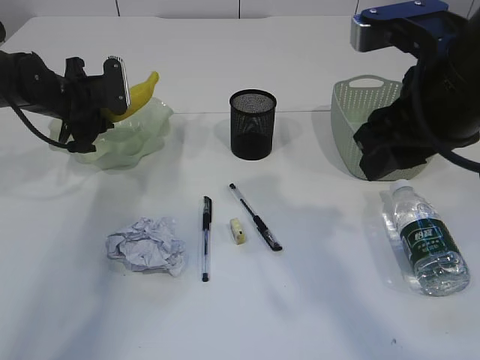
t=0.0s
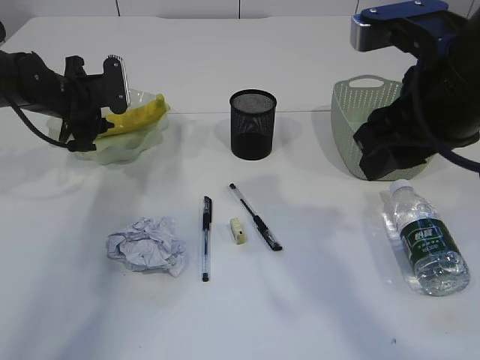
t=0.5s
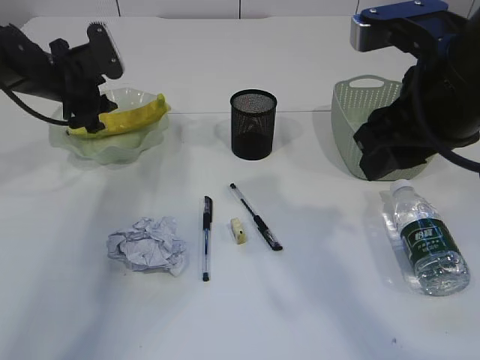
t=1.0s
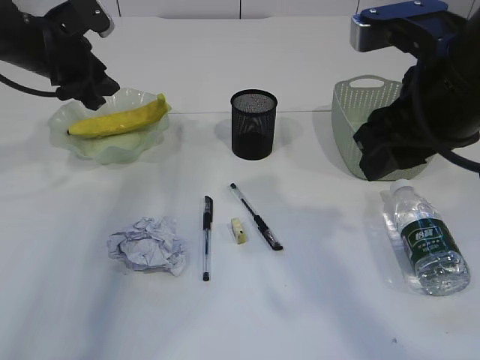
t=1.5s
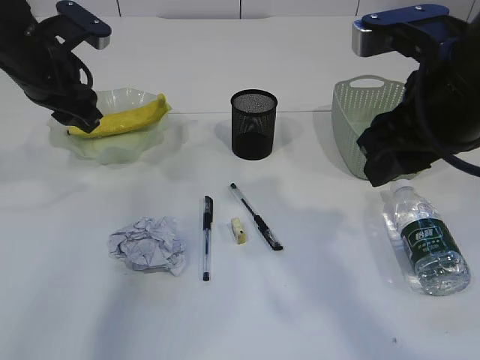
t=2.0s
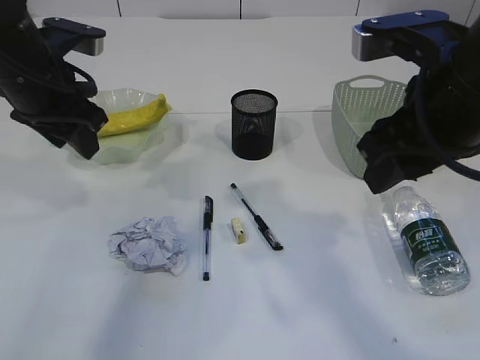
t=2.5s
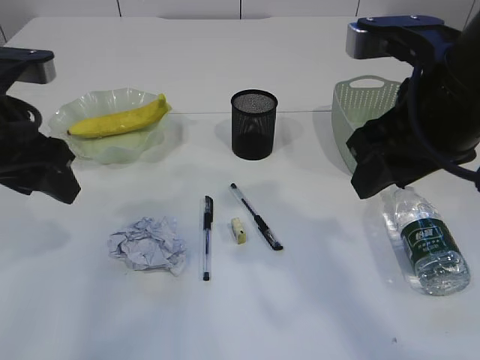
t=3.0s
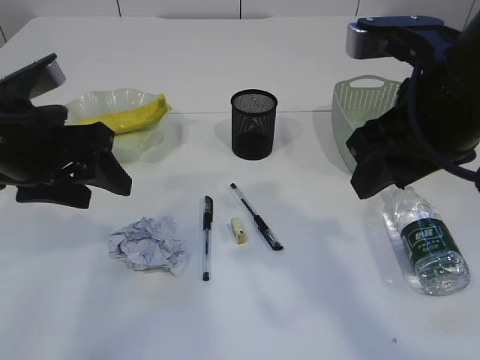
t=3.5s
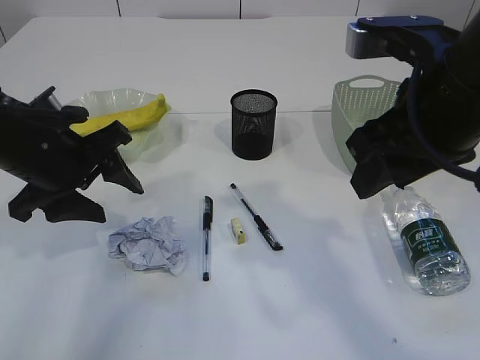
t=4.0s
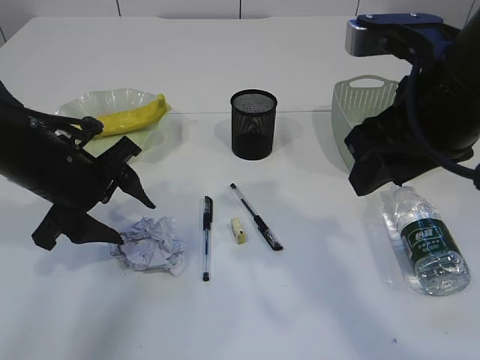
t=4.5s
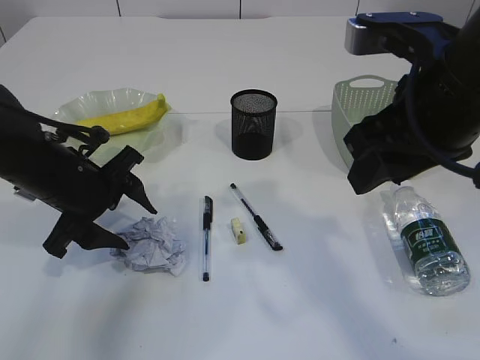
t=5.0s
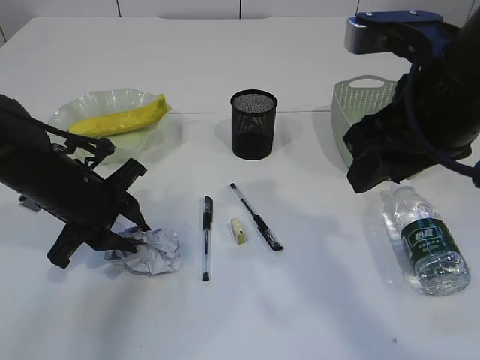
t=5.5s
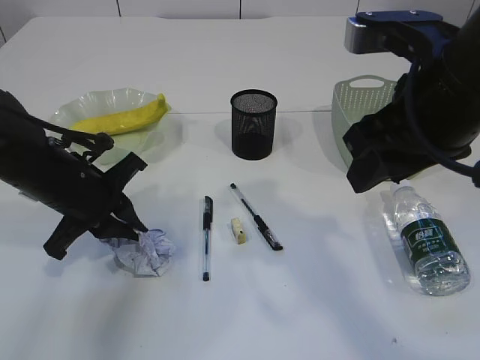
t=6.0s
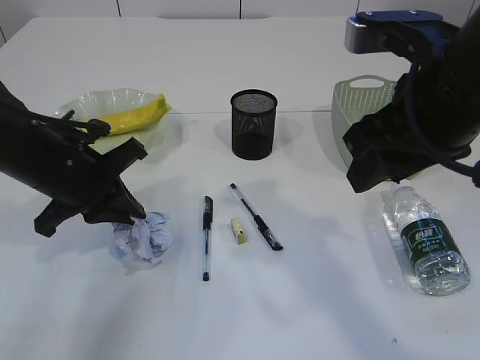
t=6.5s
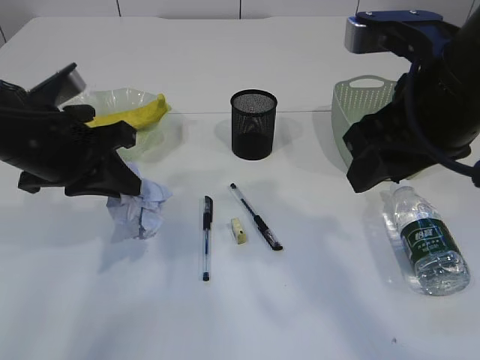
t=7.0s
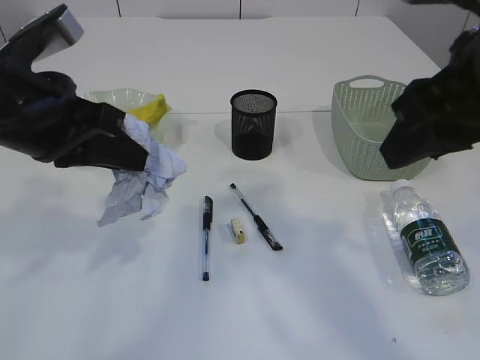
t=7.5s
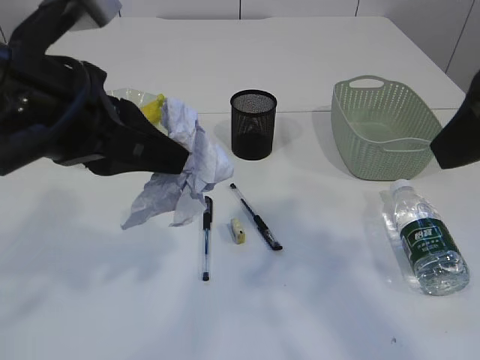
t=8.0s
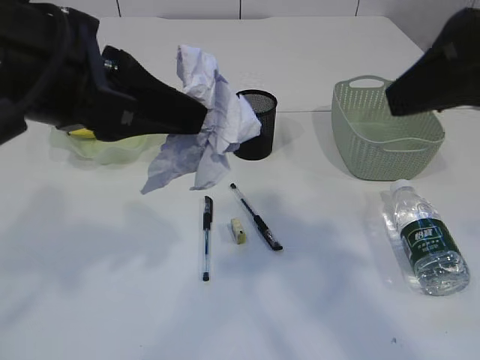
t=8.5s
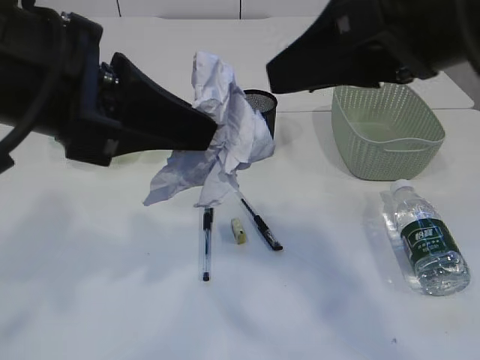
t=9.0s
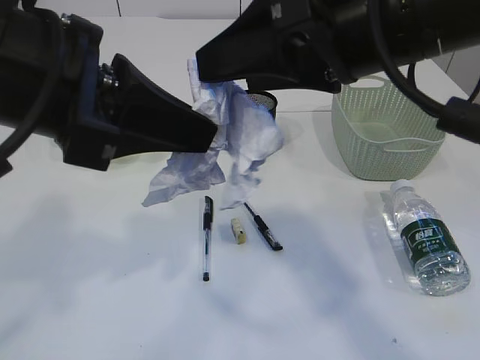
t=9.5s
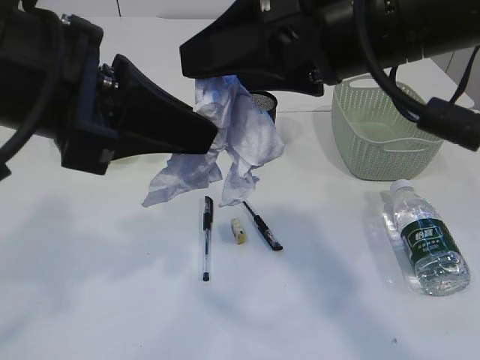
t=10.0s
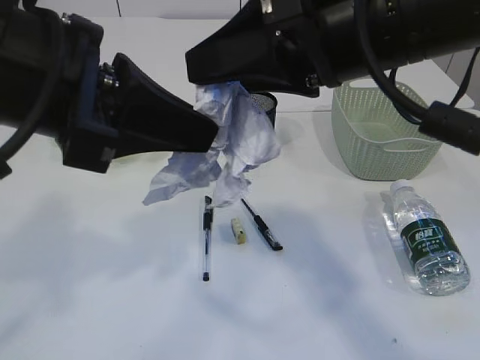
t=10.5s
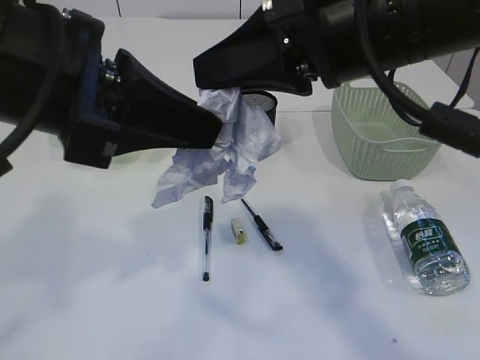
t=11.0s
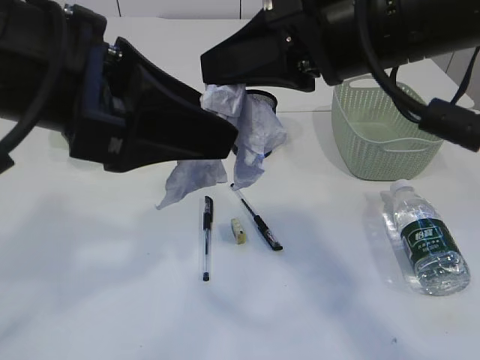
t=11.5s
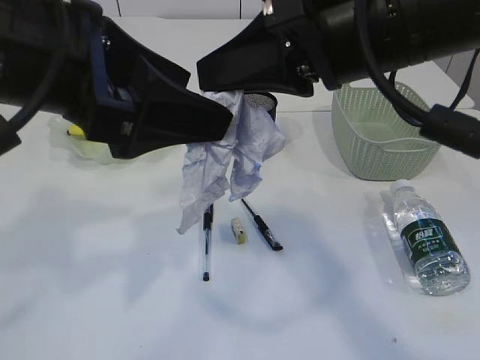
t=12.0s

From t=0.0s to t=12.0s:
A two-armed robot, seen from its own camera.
Step, from t=1.5s to t=6.5s: Pick up the waste paper.
From t=0.0s to t=2.0s: The left gripper moves upward and backward, approximately 10 cm.
From t=2.0s to t=4.0s: The left gripper shifts roughly 10 cm backward.
From t=4.0s to t=6.0s: The left gripper heads downward, covering roughly 5 cm, and closes its fingers.
From t=6.0s to t=8.0s: The left gripper shifts some 20 cm upward and backward, while the right gripper shifts about 10 cm backward and upward.
From t=8.0s to t=10.0s: The right gripper shifts approximately 10 cm to the left and forward, and opens its fingers.
From t=10.0s to t=12.0s: The left gripper opens up. The right gripper closes.

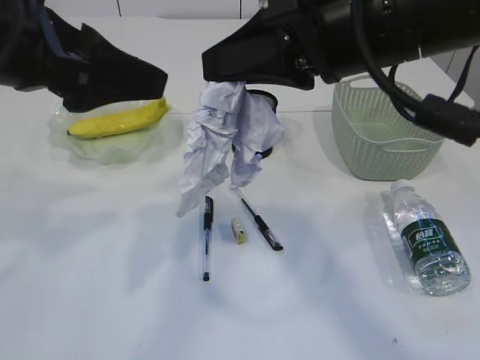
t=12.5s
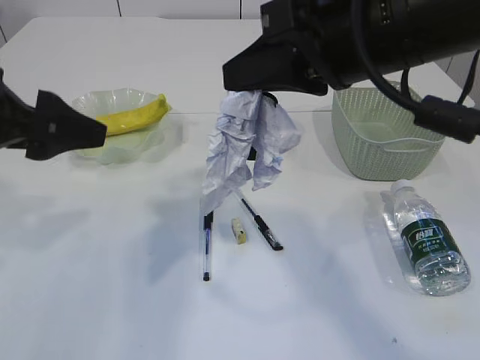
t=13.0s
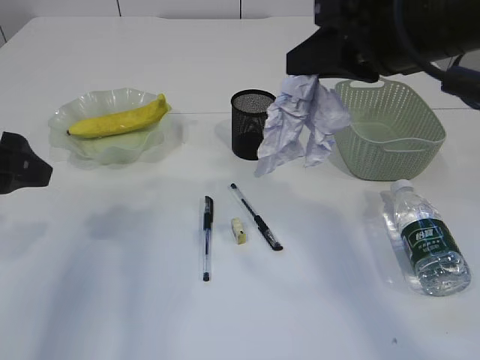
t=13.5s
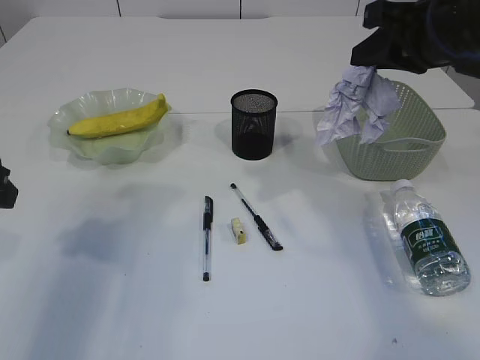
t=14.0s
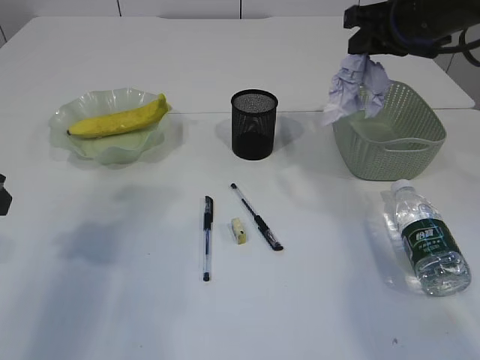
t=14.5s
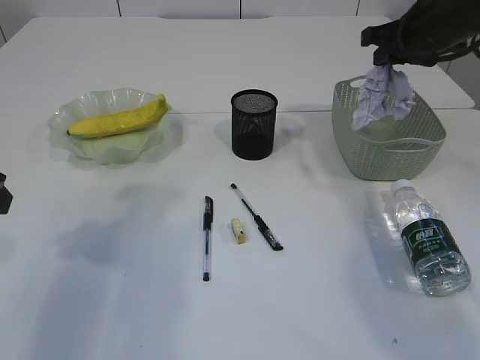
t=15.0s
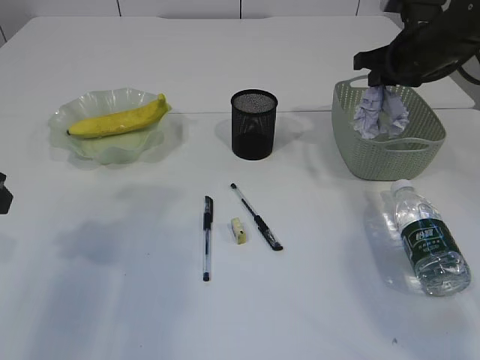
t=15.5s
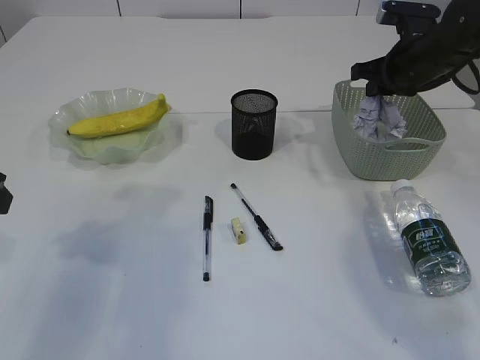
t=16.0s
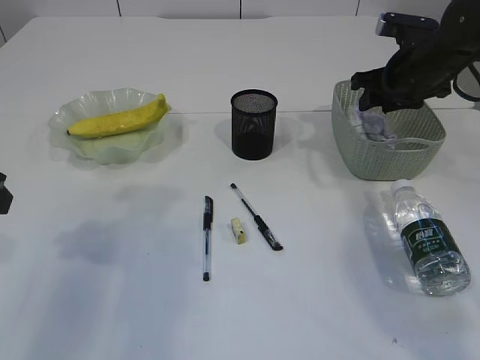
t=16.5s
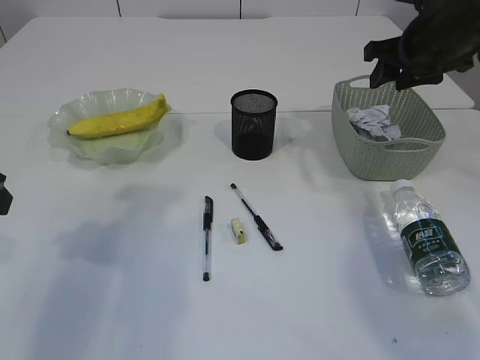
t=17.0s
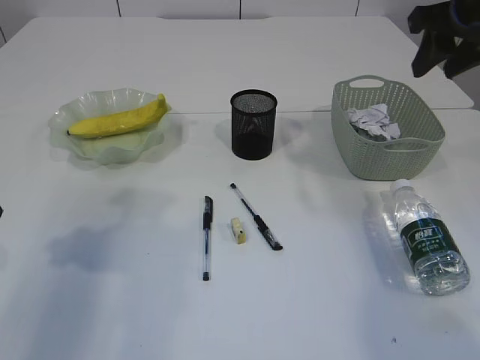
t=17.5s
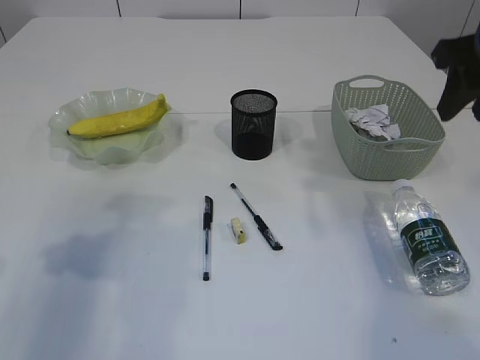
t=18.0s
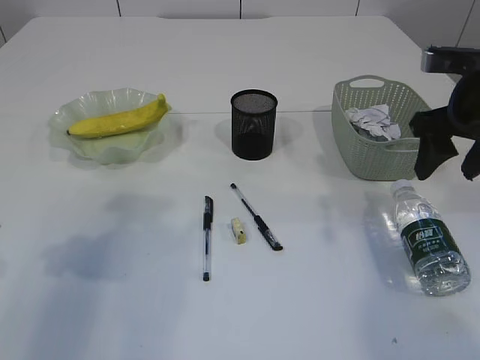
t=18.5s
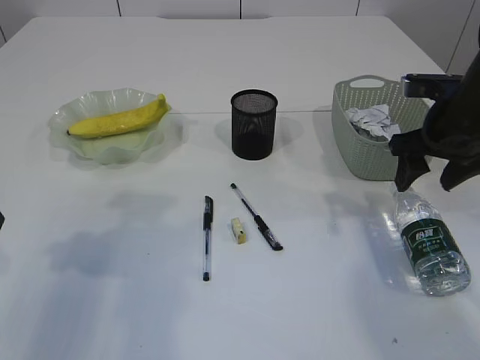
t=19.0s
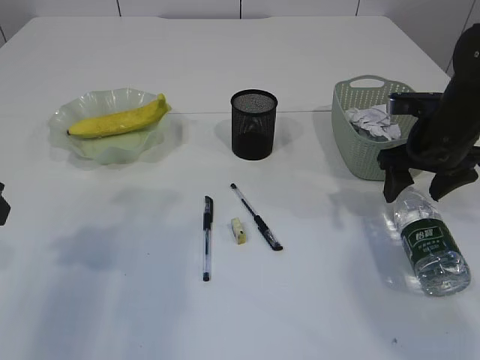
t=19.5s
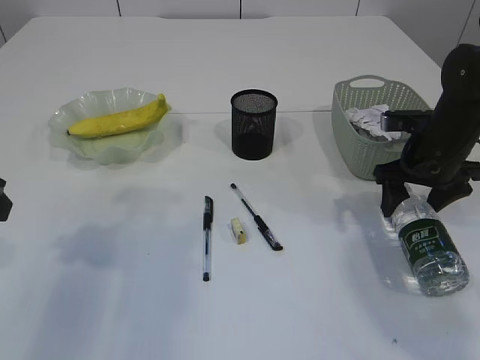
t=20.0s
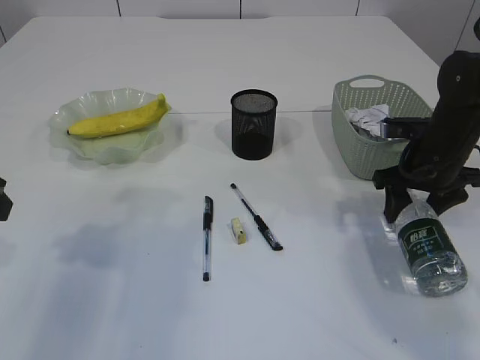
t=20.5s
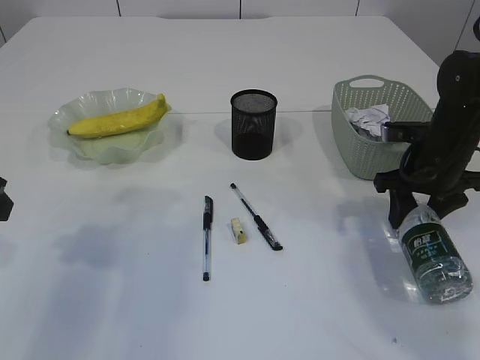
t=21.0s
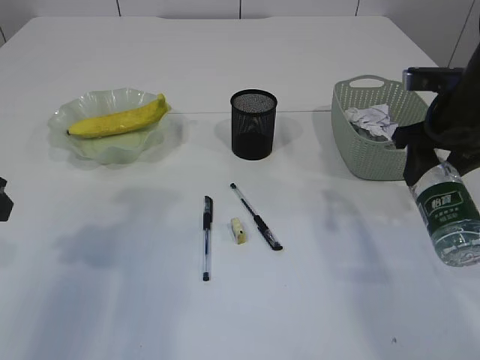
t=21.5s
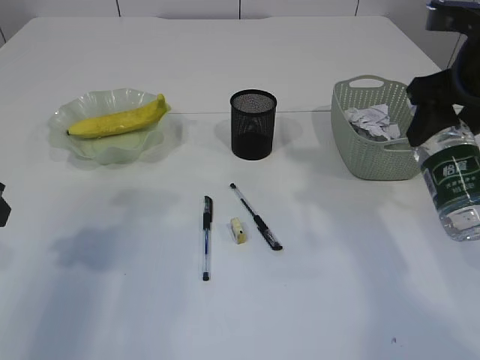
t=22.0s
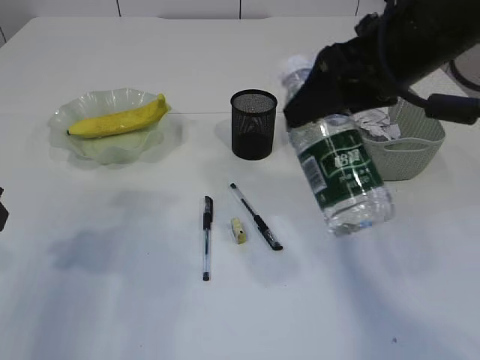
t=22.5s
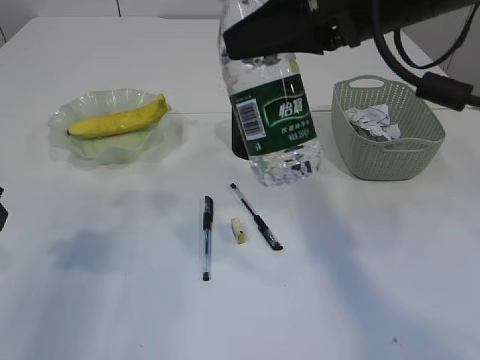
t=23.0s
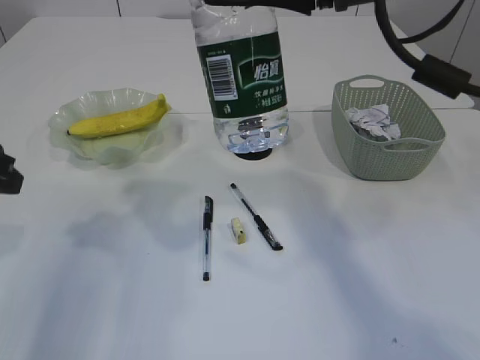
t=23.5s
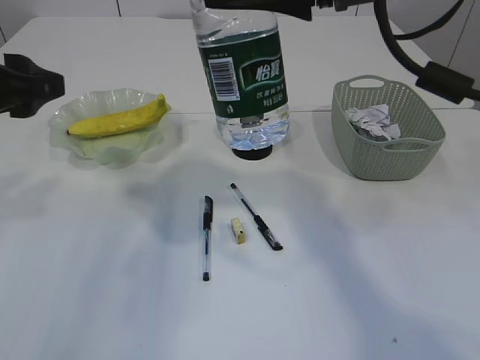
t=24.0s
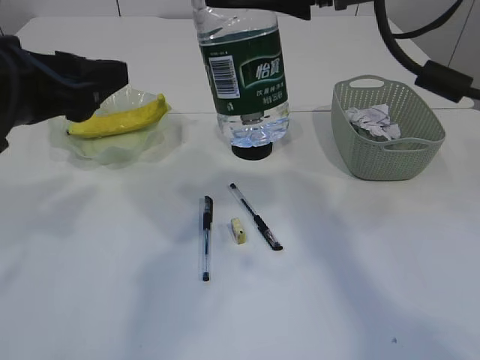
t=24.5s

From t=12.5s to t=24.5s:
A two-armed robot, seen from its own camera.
Step, from t=13.0s to t=17.0s: Place the waste paper in the basket.
Step, from t=17.5s to t=21.0s: Pick up the bottle with the right arm.
From t=12.5s to t=14.5s: The right gripper is displaced forward and to the right by some 20 cm. The left gripper is displaced to the left and downward by about 15 cm.
From t=14.5s to t=16.5s: The right gripper shifts about 10 cm downward and forward, and opens.
From t=16.5s to t=18.5s: The right gripper heads backward, covering some 15 cm.
From t=18.5s to t=20.5s: The right gripper is displaced downward and forward by approximately 15 cm.
From t=20.5s to t=22.5s: The right gripper moves upward, to the left and backward, some 25 cm.
From t=22.5s to t=24.5s: The left gripper is displaced to the right by some 10 cm, while the right gripper travels upward by some 5 cm.

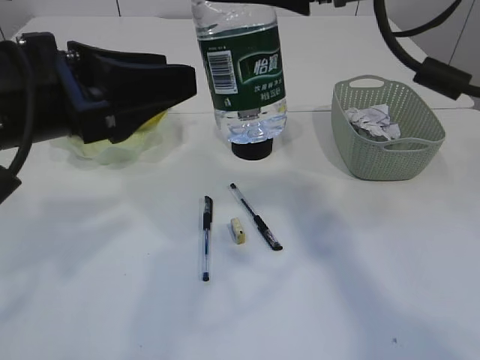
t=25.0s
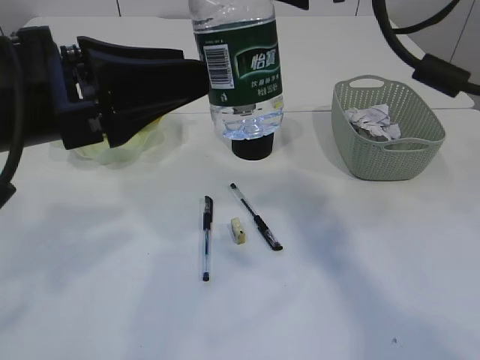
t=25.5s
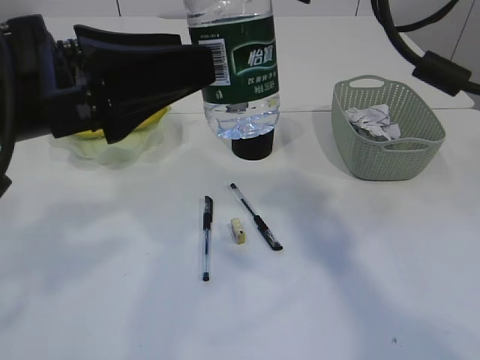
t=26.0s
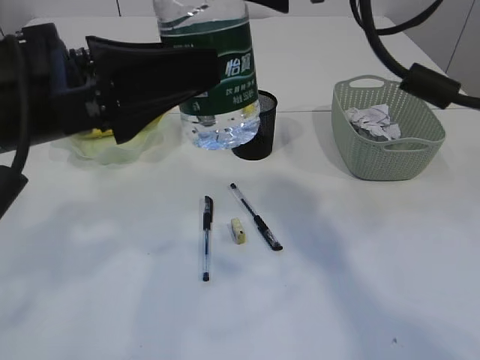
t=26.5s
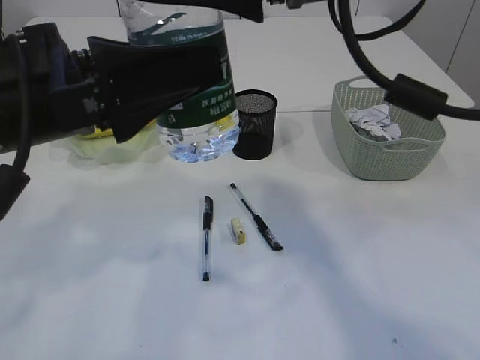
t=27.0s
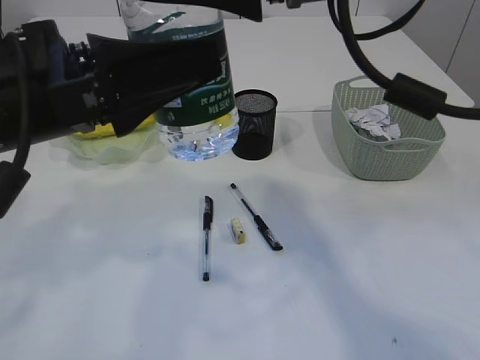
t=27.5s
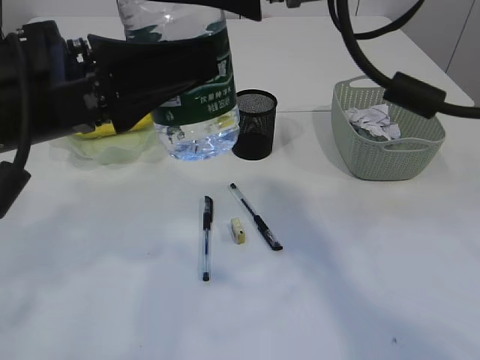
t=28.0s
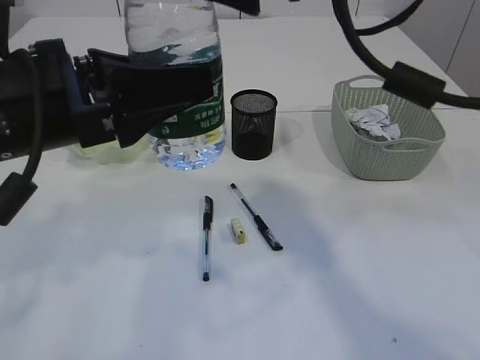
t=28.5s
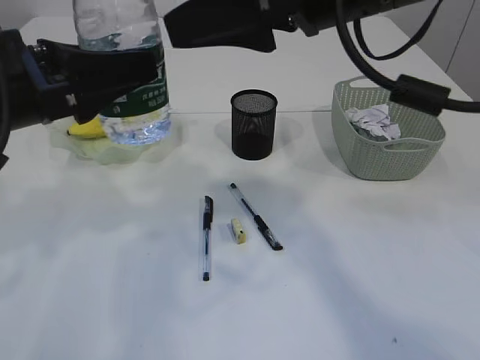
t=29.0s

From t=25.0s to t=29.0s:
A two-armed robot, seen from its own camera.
Step, from t=25.0s to t=29.0s: transfer the bottle to the left arm.
From t=25.0s to t=27.0s: There are only small adjustments of the grippers.
From t=27.0s to t=29.0s: The left gripper changes place by some 5 cm, and closes its fingers.
